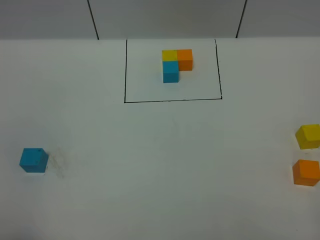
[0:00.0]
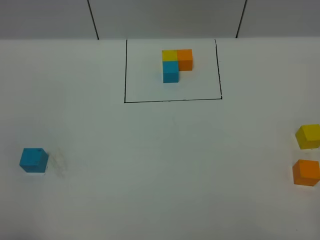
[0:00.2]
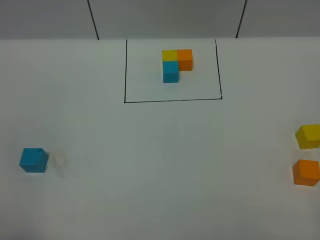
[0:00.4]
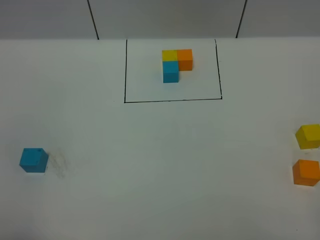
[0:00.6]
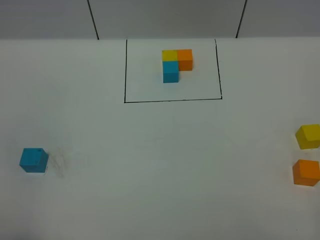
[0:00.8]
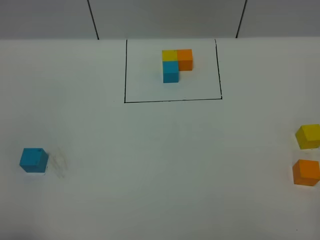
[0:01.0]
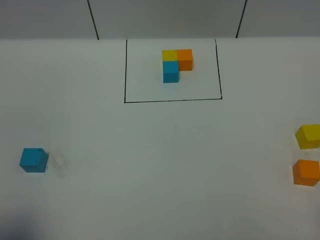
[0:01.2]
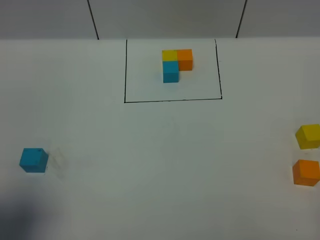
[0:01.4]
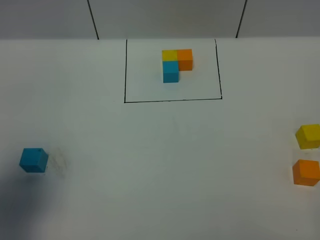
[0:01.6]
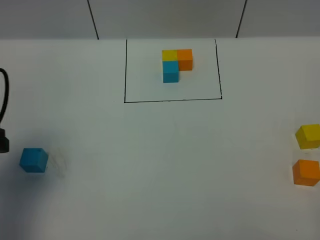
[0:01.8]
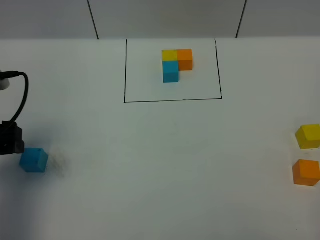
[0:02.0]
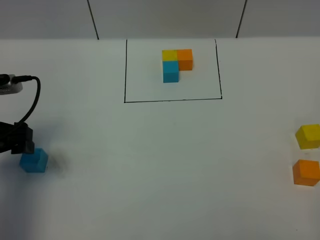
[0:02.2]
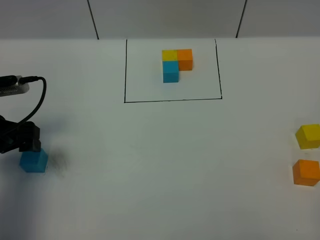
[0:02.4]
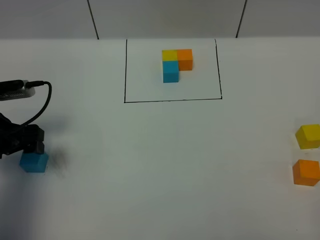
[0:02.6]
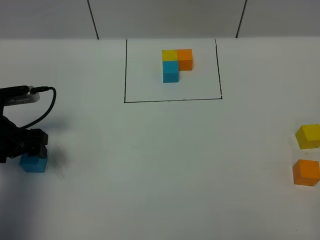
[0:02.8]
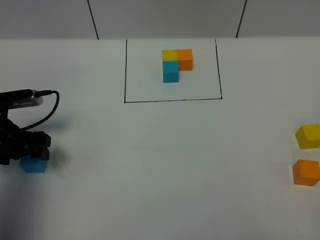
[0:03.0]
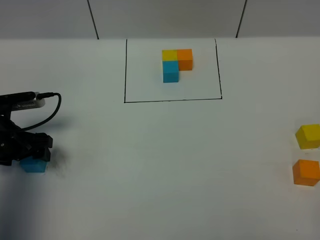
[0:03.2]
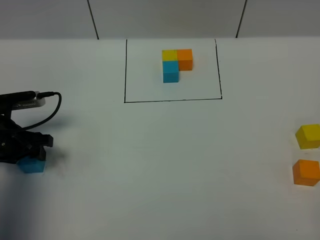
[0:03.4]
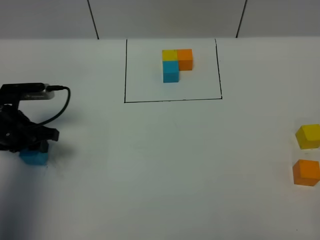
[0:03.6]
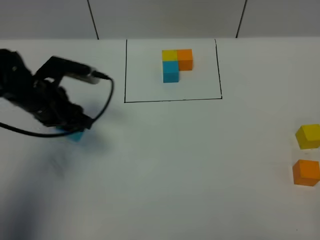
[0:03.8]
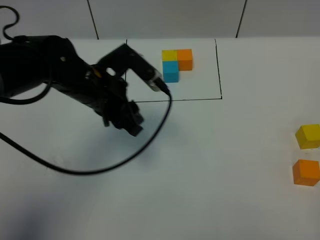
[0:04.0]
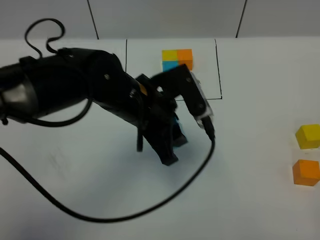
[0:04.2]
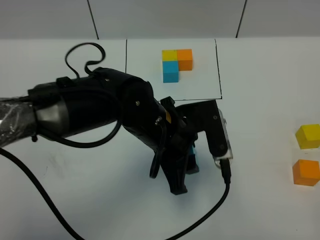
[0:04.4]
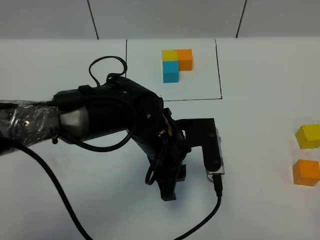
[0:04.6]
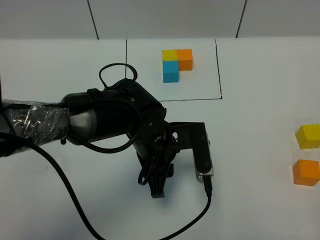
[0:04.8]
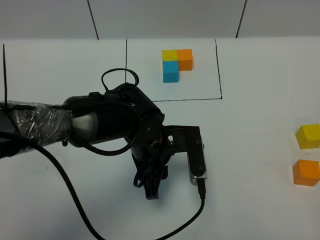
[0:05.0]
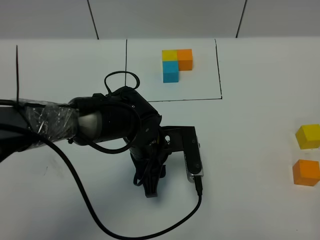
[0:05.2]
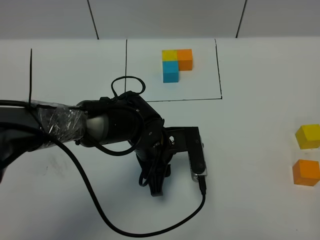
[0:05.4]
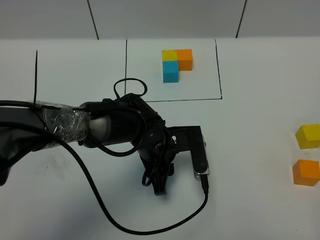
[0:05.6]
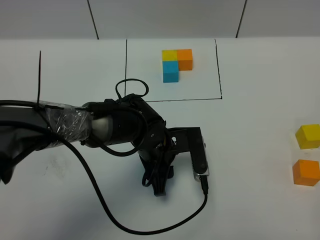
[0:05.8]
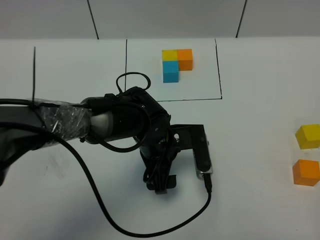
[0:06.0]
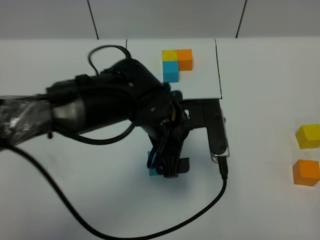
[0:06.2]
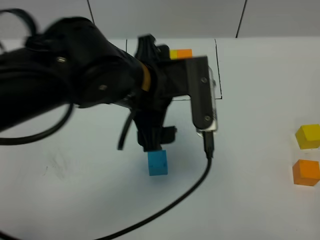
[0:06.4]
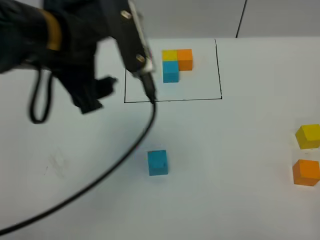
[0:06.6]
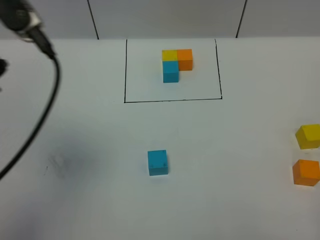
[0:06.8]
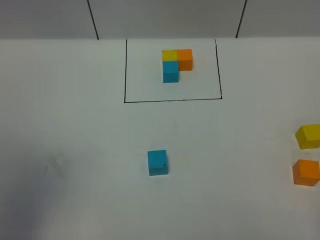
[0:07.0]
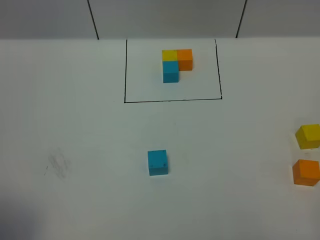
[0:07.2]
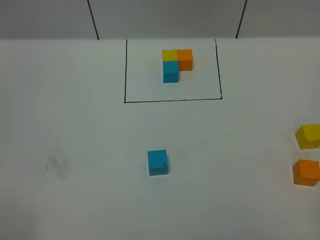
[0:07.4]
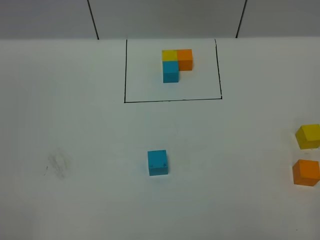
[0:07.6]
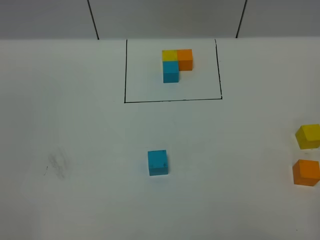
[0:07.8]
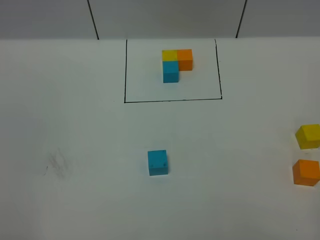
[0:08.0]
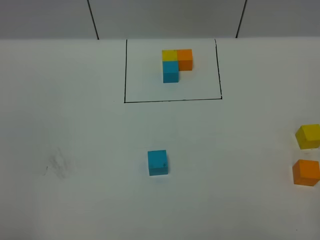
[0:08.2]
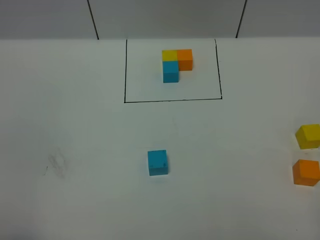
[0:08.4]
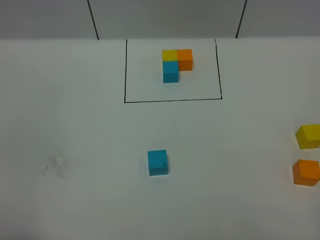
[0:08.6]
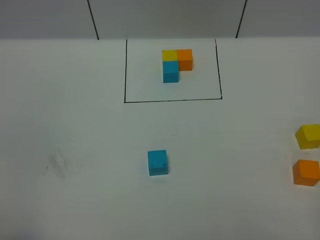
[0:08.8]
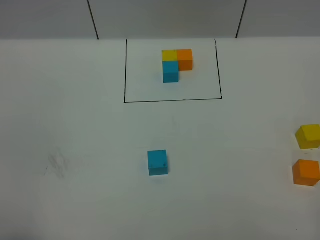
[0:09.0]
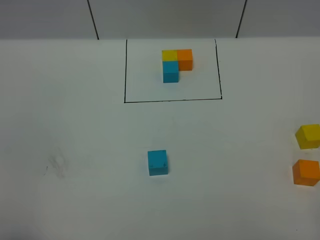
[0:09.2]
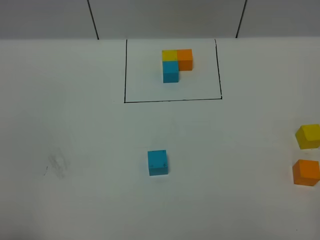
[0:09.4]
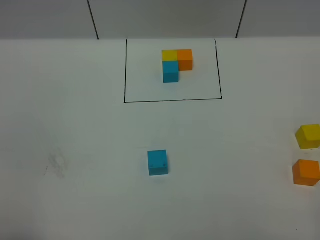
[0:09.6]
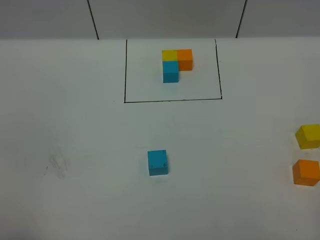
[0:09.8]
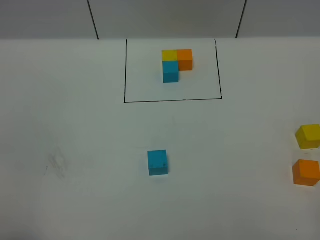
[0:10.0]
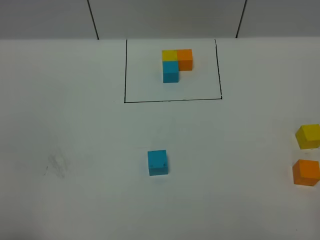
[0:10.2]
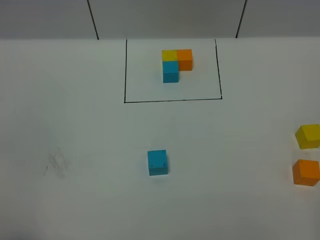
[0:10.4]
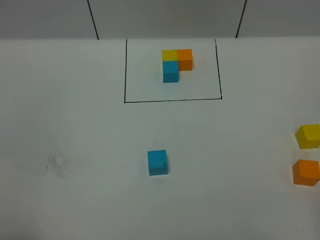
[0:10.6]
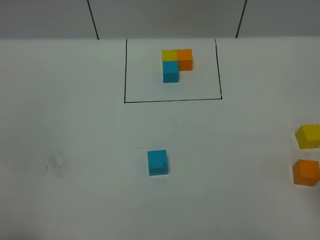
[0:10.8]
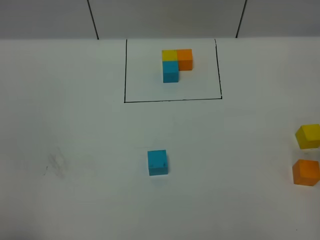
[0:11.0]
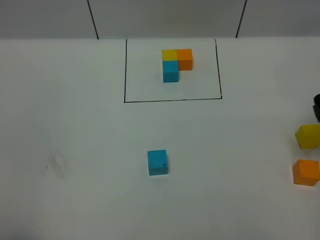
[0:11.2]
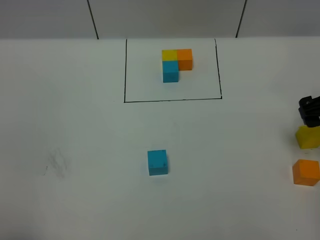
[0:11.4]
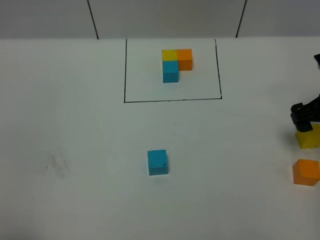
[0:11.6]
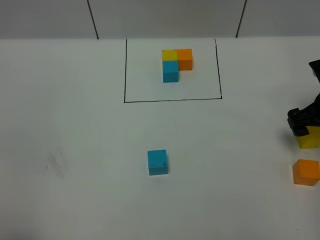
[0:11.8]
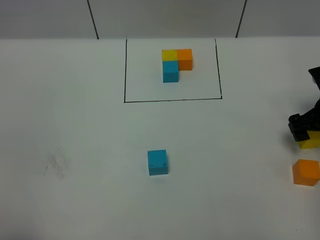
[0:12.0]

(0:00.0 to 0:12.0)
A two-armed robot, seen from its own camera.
Task of the whole recording: According to the building block template in front, assemble the scattered blocks together.
Step, 0:01.8 - 0:06.2: Put the blue cube in the center of the table.
0:00.0 - 0:01.6: The left gripper heads forward, covering roughly 15 cm.
0:01.6 - 0:03.0: The left gripper shifts about 20 cm downward and forward.
0:03.0 - 0:04.4: The left gripper heads to the right, covering about 30 cm, and closes its fingers.
0:04.4 - 0:06.0: The left gripper is displaced downward by roughly 5 cm, and opens.
0:06.0 - 0:07.6: The left gripper is displaced backward, to the left and upward by about 50 cm.
0:10.4 - 0:12.0: The right gripper travels forward and downward by approximately 35 cm, and opens.

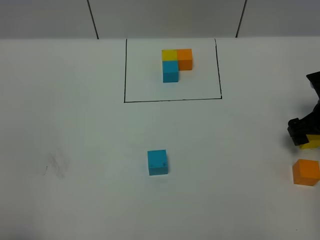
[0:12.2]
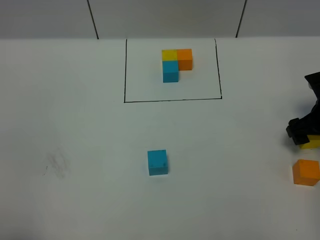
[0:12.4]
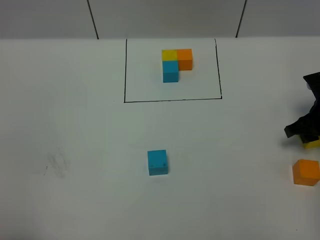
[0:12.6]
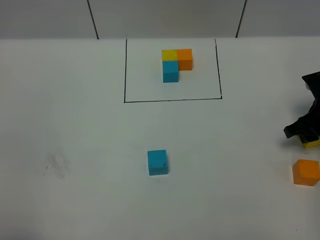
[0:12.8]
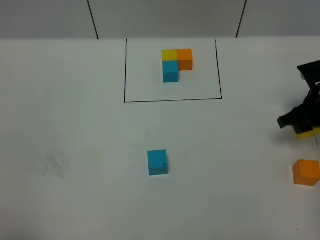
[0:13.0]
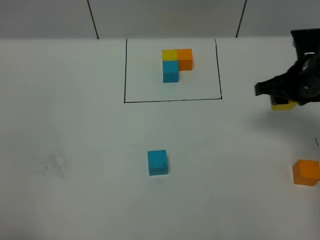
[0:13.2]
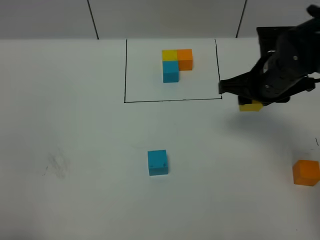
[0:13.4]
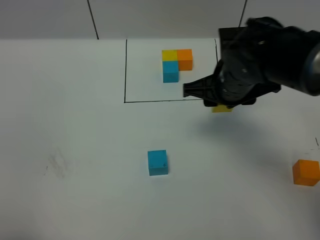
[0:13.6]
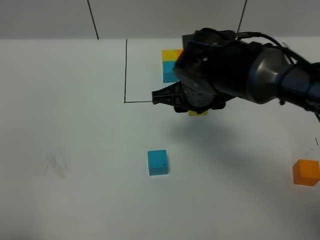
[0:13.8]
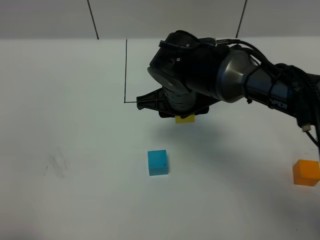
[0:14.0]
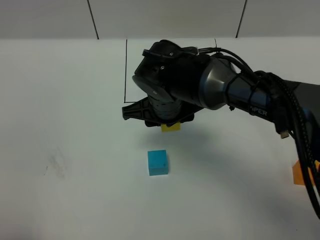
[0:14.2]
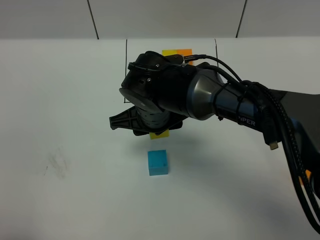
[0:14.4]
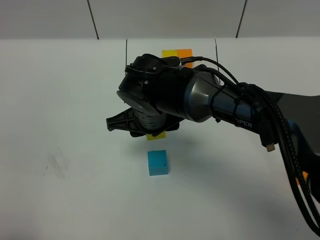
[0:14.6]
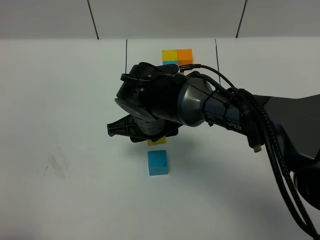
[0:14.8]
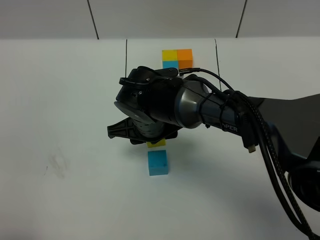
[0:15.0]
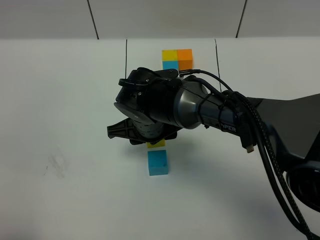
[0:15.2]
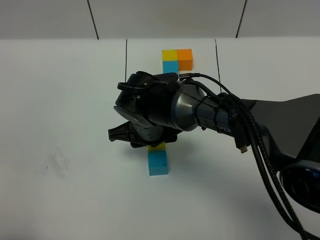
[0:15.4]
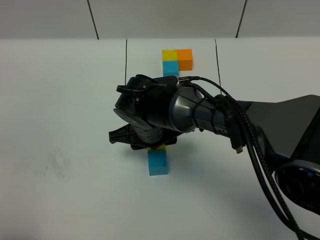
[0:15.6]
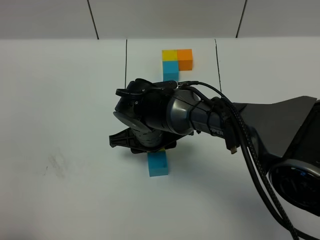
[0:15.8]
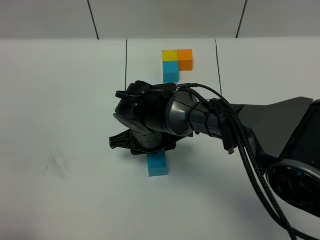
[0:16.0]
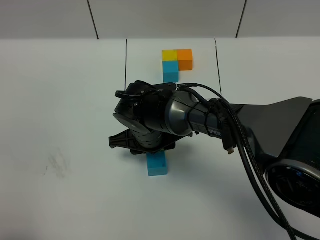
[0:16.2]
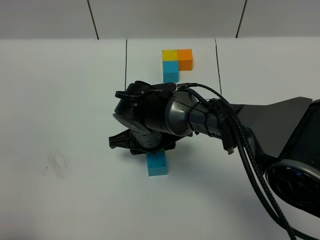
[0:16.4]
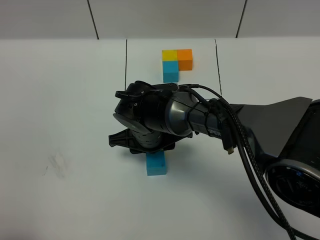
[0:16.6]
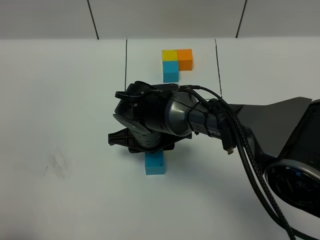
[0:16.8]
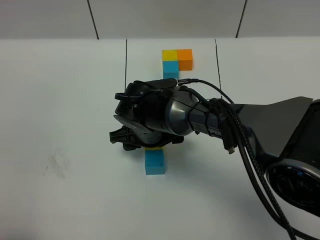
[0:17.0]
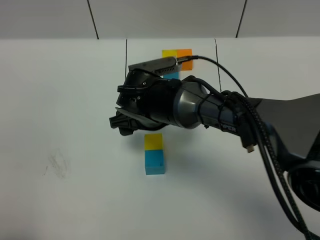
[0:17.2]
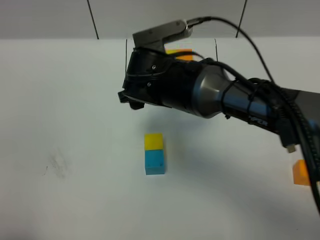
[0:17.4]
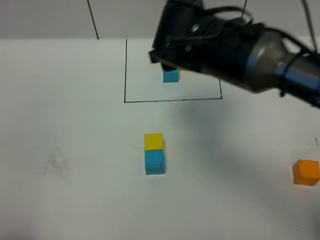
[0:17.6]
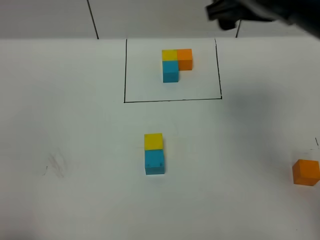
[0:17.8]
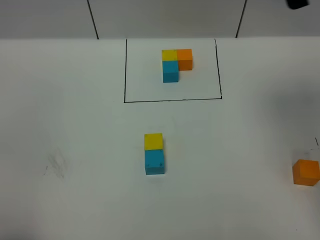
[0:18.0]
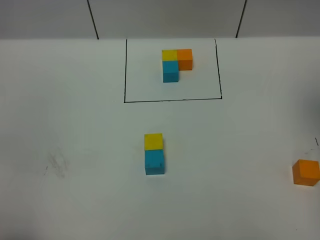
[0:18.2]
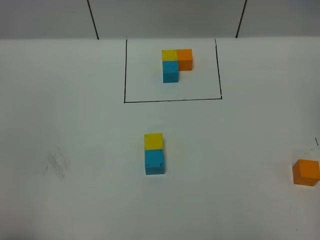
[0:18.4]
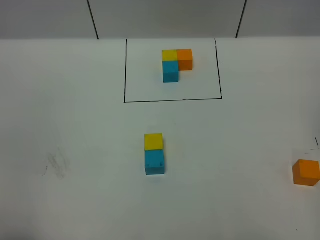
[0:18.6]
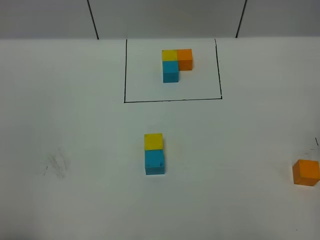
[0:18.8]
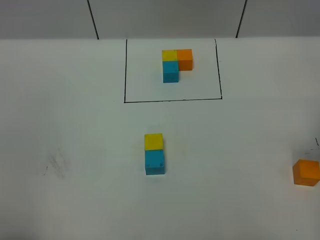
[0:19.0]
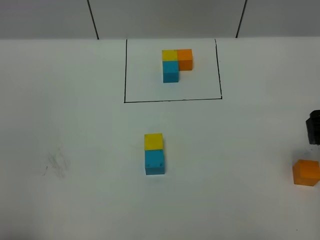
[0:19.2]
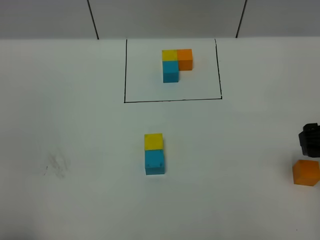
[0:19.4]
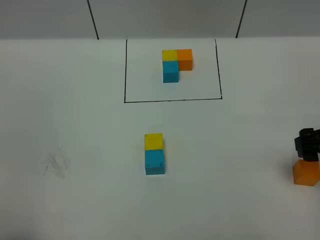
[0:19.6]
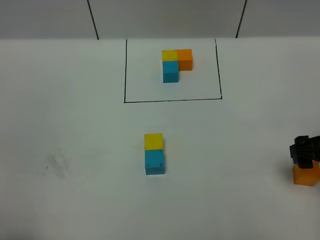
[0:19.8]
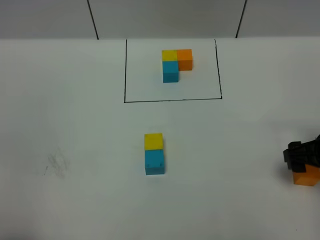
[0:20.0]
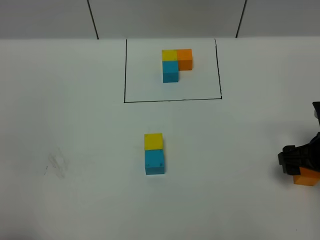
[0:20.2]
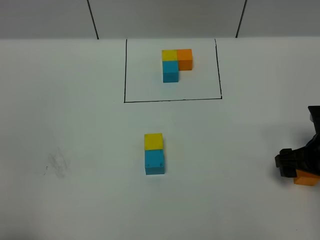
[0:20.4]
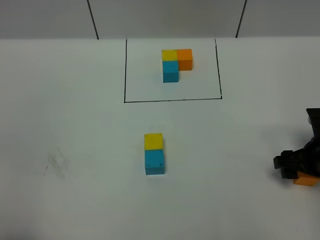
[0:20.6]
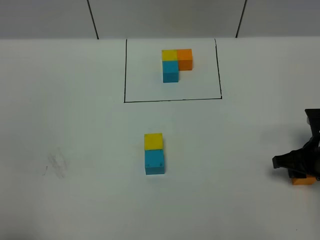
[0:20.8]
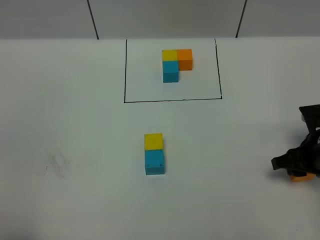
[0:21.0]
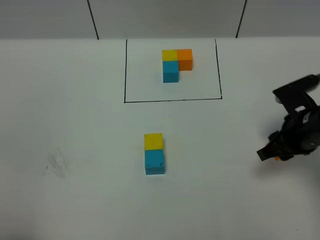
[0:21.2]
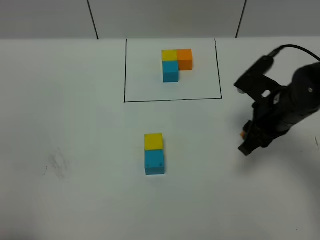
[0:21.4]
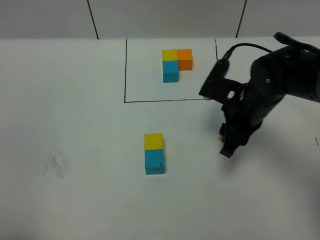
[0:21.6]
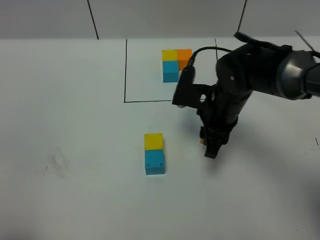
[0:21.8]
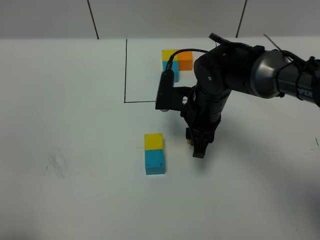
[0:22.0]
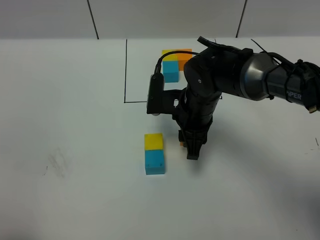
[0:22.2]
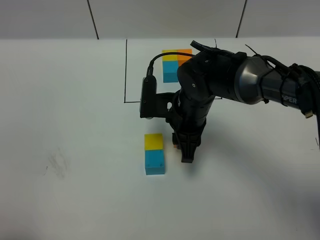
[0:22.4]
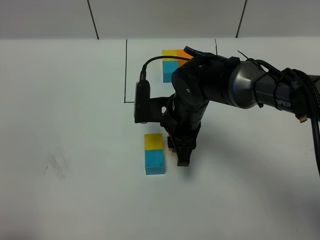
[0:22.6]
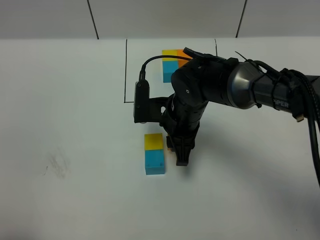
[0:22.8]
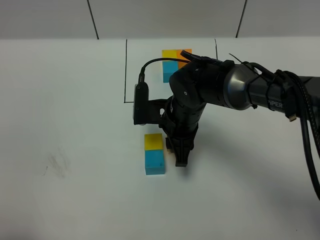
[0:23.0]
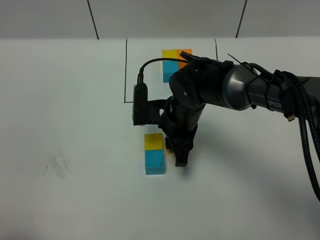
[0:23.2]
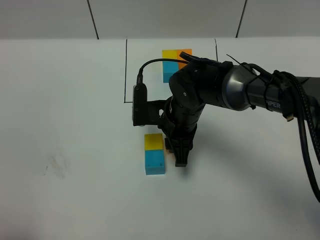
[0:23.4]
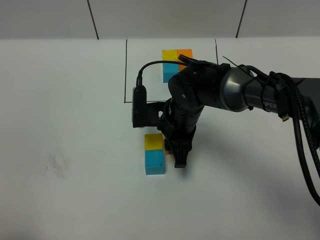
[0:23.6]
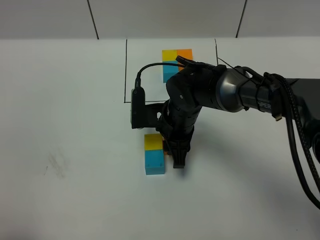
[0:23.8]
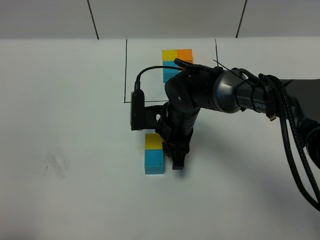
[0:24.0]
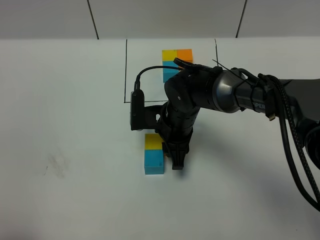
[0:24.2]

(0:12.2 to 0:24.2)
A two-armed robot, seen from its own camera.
Task of the whole recording: According to the building block template in front, assemble the scattered blocks together.
Step, 0:12.2 - 0:17.0: Put the yellow cube on the behind of the blue cube.
0:12.2 - 0:13.8: The right gripper goes approximately 25 cm to the left, and closes.
0:13.8 - 0:15.2: The right gripper travels to the left and downward by approximately 10 cm.
0:15.2 - 0:16.6: The grippers move only a little.
0:16.6 - 0:18.2: The right gripper moves upward and to the right, some 50 cm, and opens its fingers.
0:18.2 - 0:19.8: The right gripper shifts roughly 25 cm downward.
0:19.8 - 0:21.2: The right gripper is displaced to the left and forward by approximately 5 cm, and closes its fingers.
0:21.2 - 0:22.6: The right gripper shifts some 20 cm to the left.
0:22.6 - 0:24.2: The grippers stay close to where they were, moving slightly.
